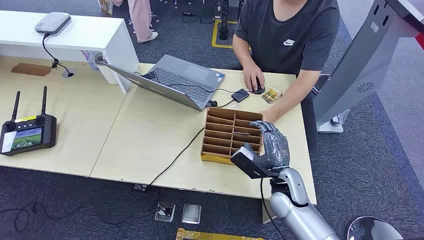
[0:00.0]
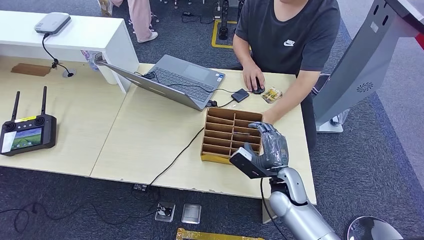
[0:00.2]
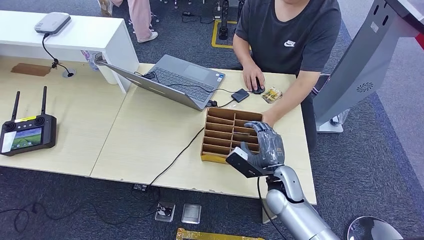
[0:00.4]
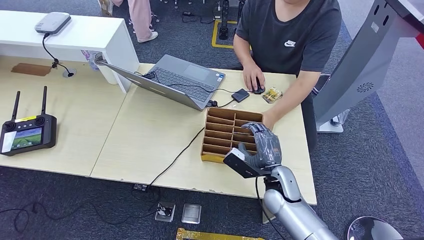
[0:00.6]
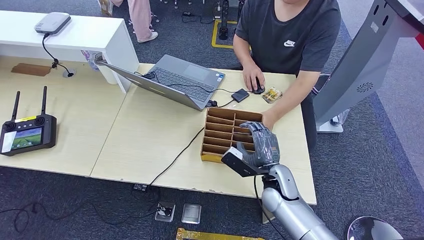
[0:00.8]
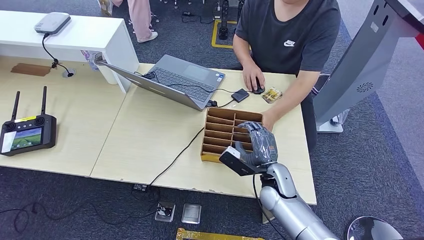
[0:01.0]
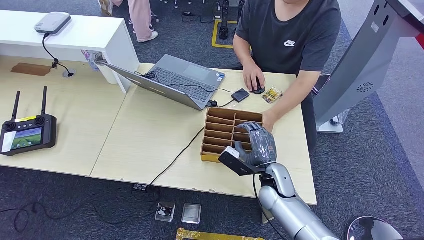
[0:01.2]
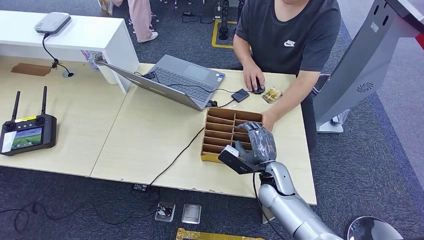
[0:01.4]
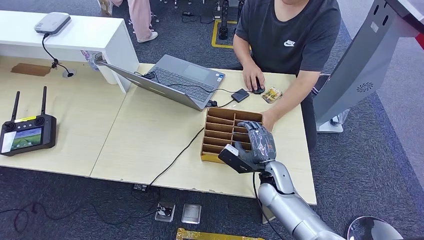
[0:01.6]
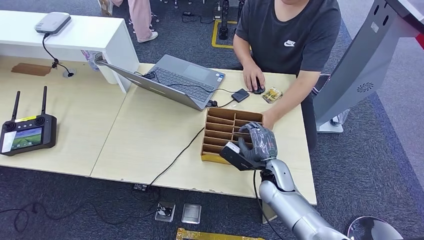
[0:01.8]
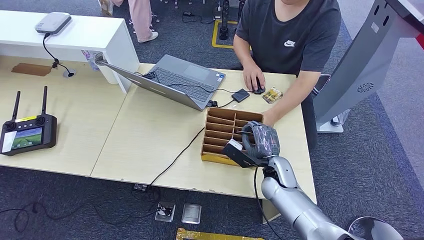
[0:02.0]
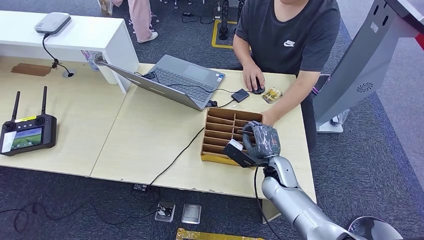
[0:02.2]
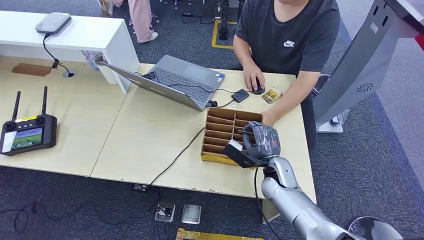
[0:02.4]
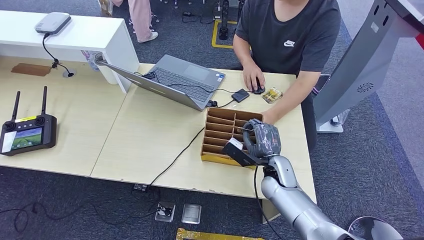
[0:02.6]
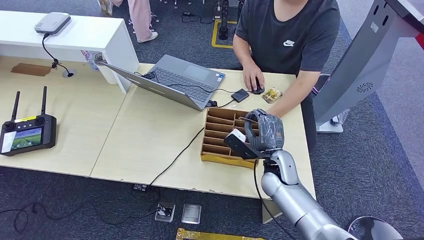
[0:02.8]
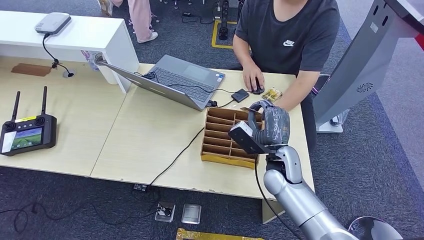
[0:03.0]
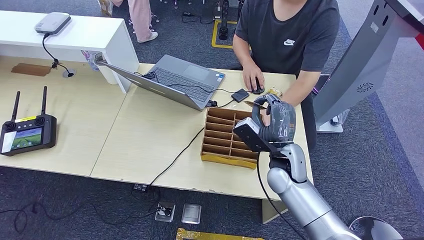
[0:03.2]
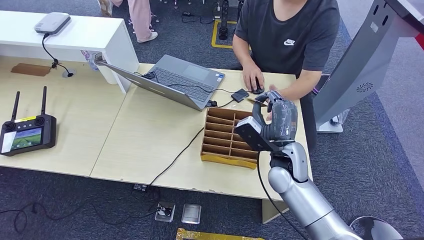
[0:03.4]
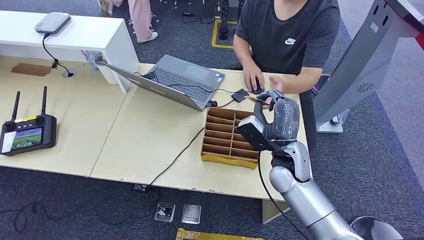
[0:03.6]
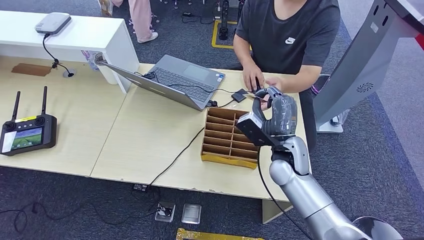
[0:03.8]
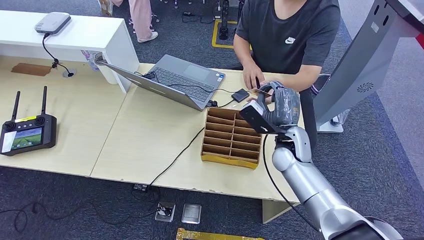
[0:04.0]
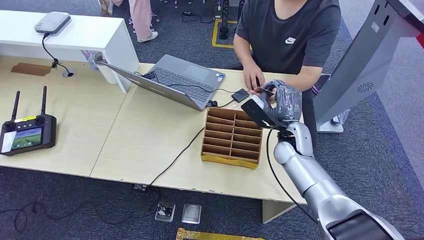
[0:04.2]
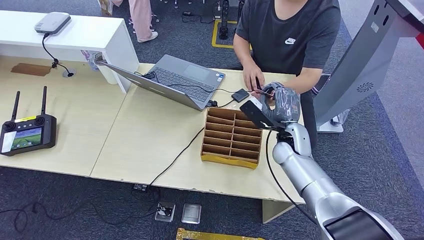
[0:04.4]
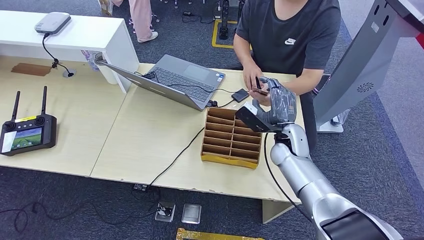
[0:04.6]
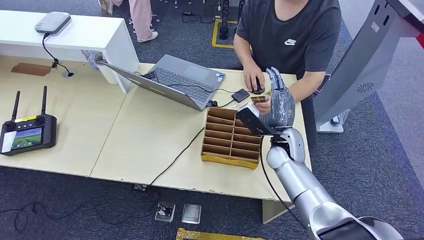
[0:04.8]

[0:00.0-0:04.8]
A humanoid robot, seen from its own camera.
Step, 0:00.0 to 0:02.6: Pick up the key card from the card box.
Step, 0:02.8 to 0:04.6: Hand the key card to the target.
0:01.6 to 0:03.2: The right hand is displaced upward by approximately 10 cm.
0:03.2 to 0:04.8: The right hand is displaced forward by some 5 cm.
